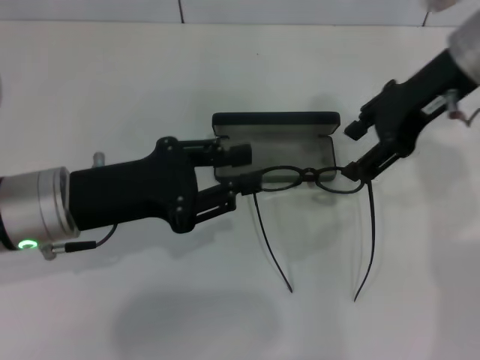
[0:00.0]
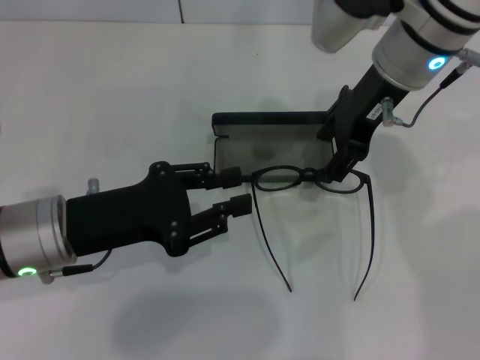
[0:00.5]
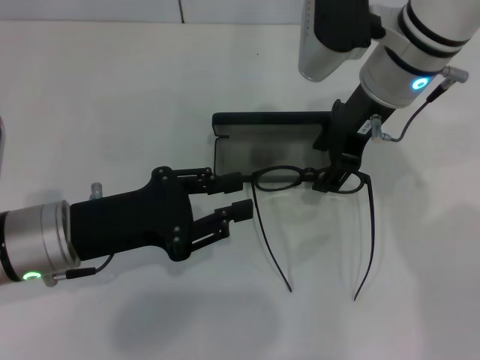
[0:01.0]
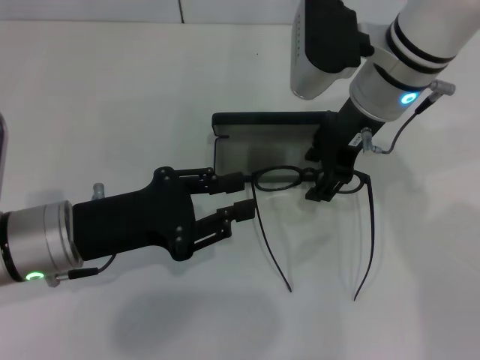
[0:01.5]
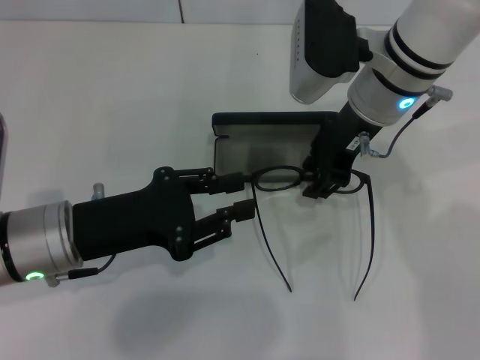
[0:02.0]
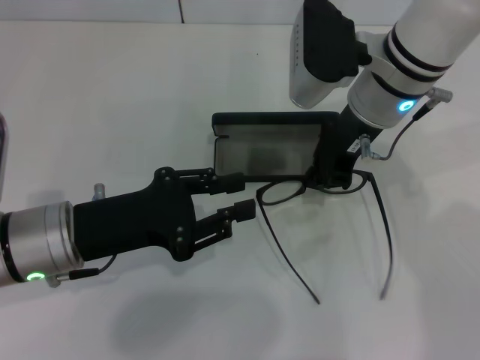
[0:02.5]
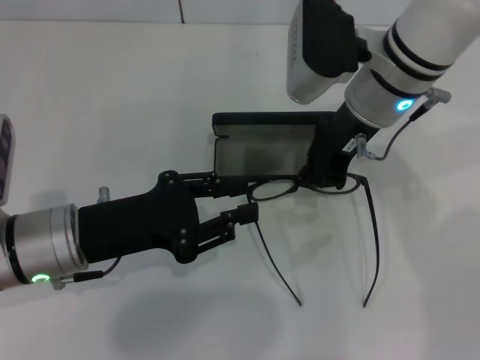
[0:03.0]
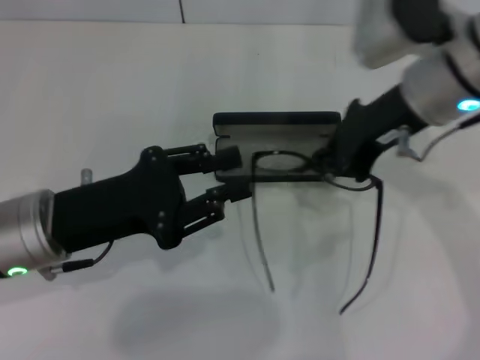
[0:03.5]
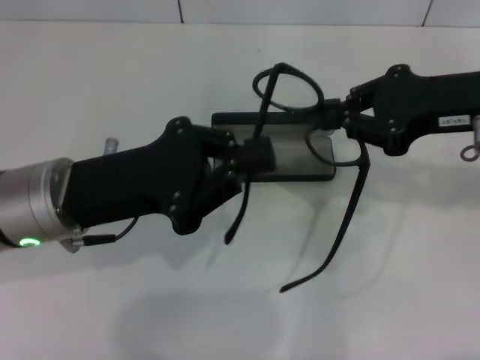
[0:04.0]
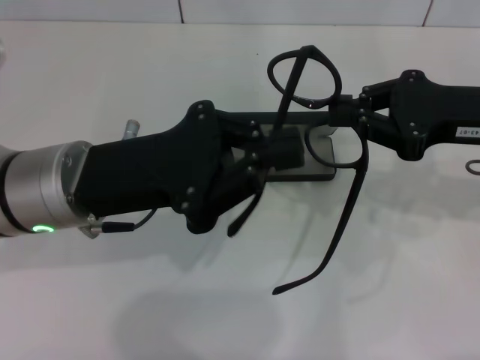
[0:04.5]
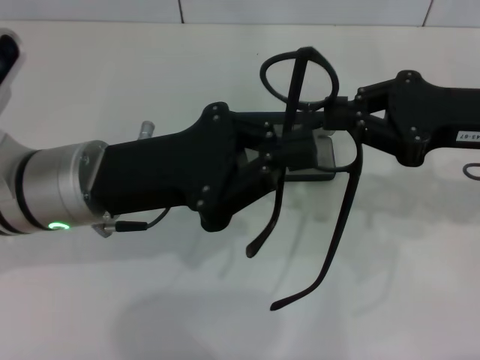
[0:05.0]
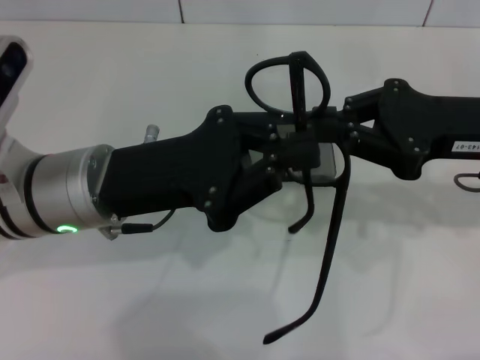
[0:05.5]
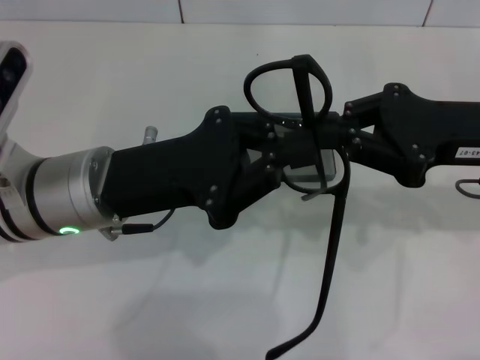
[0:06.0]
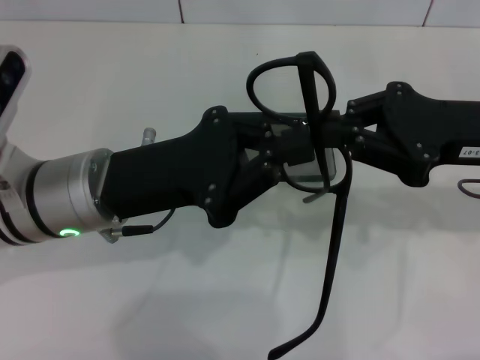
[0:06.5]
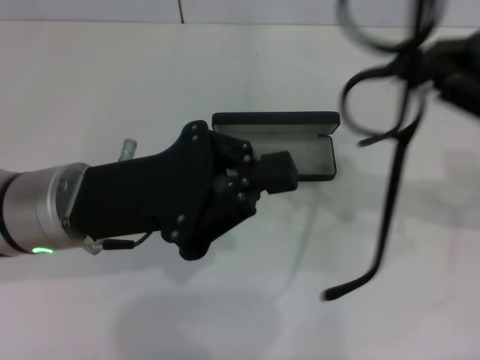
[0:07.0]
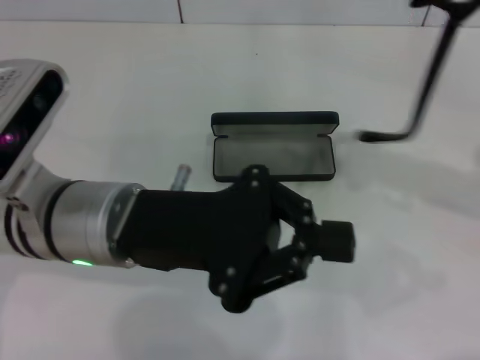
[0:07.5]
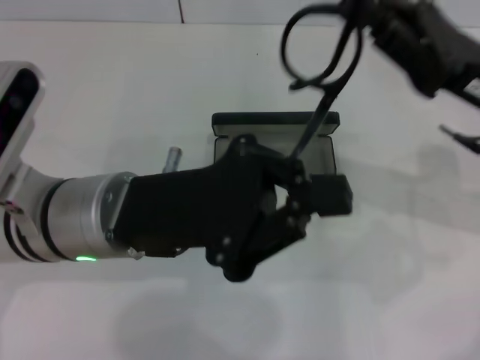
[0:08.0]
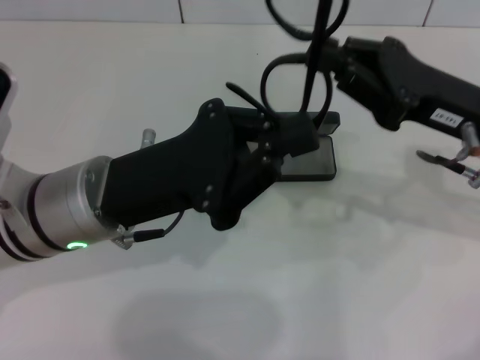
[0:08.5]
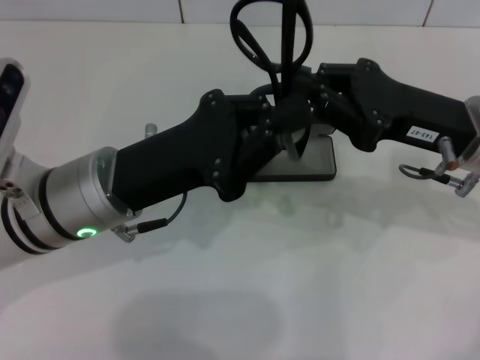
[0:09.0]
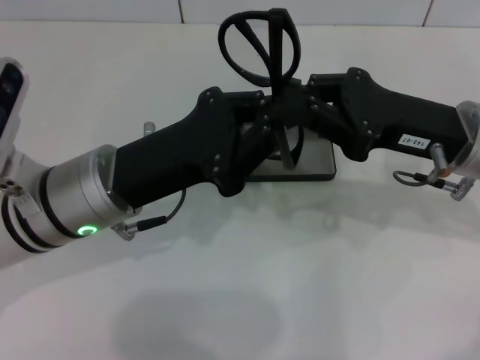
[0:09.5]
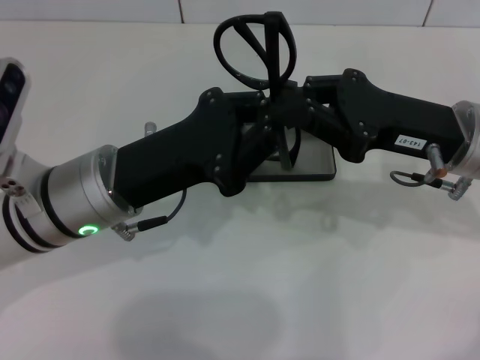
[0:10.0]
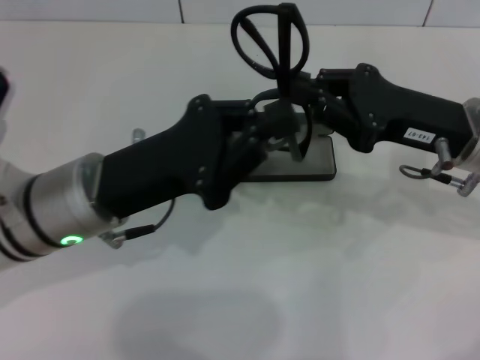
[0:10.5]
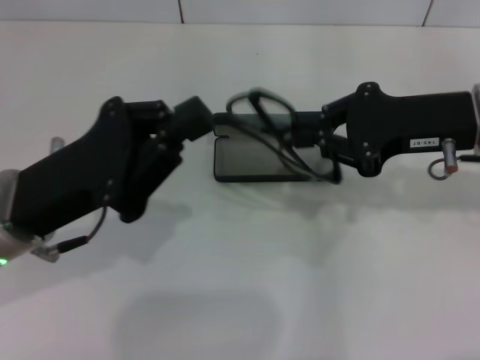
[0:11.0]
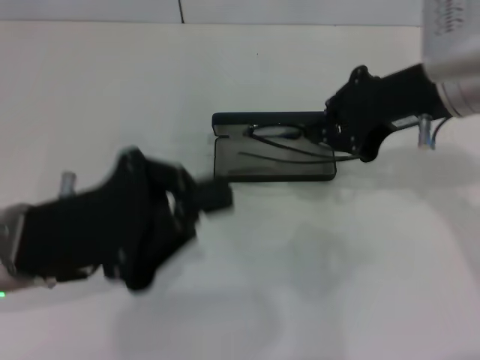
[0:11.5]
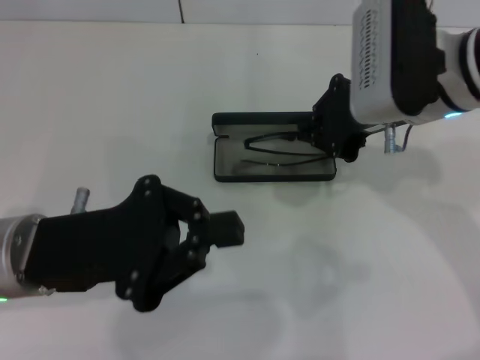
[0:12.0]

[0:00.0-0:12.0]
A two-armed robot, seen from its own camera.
Step, 0:00.0 to 0:02.5: Grab the eyeglass frame with your right hand.
Step, 0:03.0 to 0:10.0: Fold the frame with your left hand.
0:00.0 to 0:02.0: The right gripper heads to the left and downward, covering some 10 cm.
0:02.0 to 0:04.0: The right gripper is displaced to the right and backward by some 15 cm, and closes.
0:10.0 to 0:12.0: The right gripper shifts roughly 10 cm upward and to the left; the left gripper shifts some 5 cm to the left.

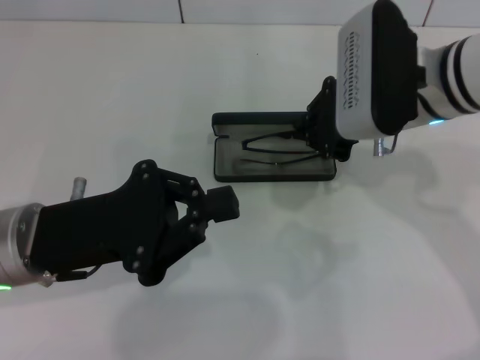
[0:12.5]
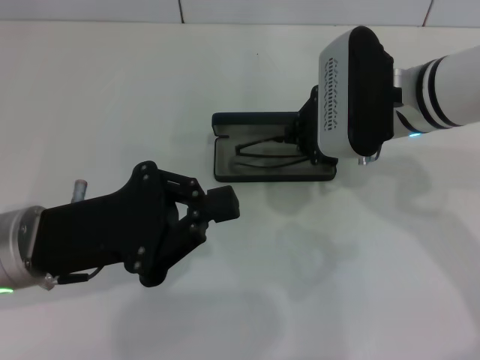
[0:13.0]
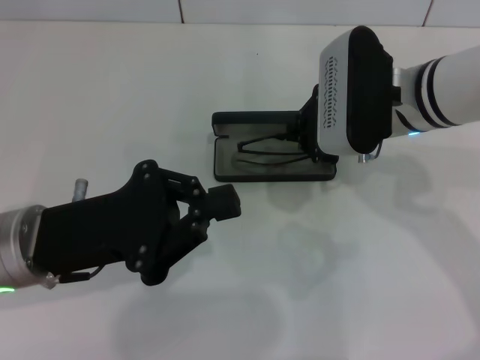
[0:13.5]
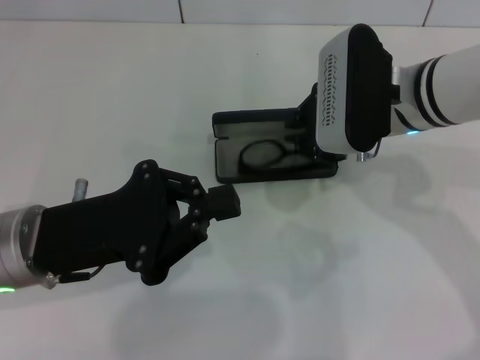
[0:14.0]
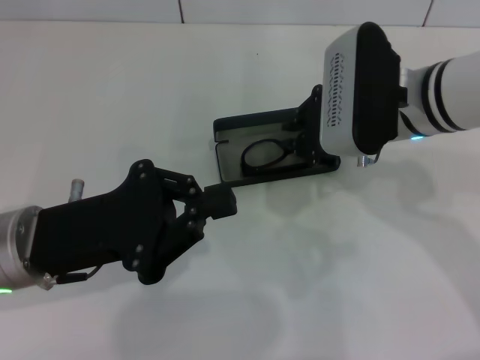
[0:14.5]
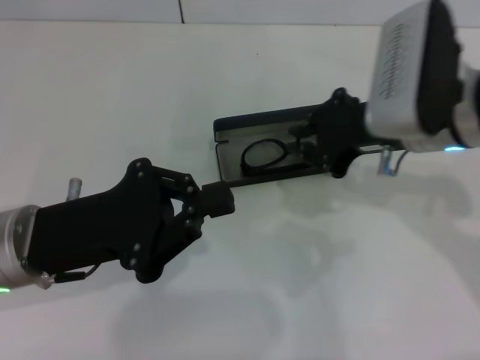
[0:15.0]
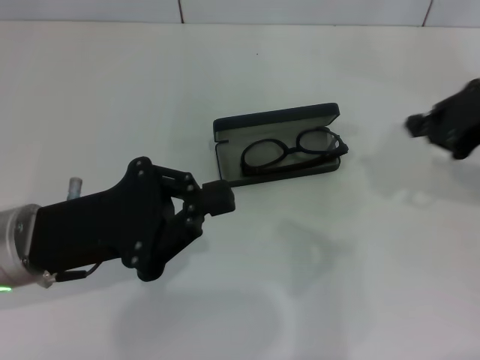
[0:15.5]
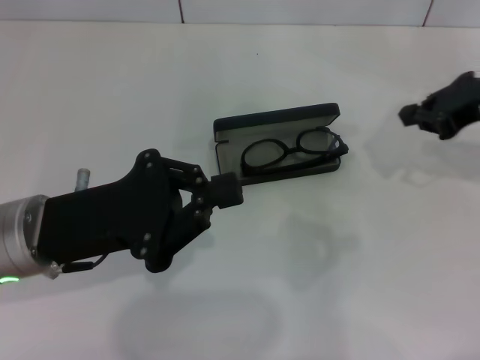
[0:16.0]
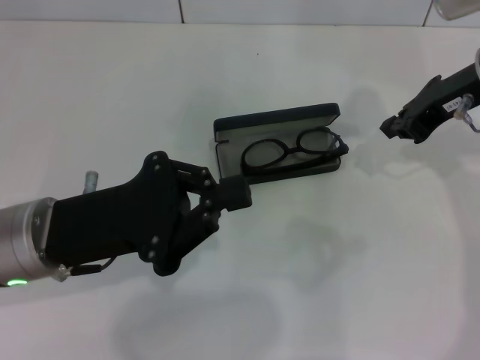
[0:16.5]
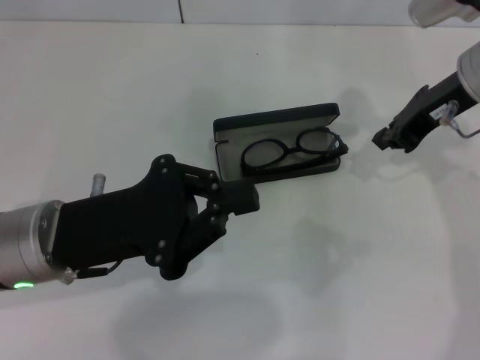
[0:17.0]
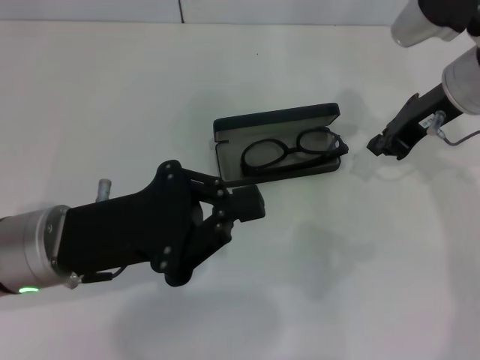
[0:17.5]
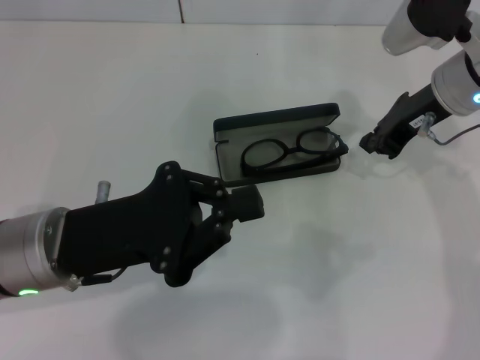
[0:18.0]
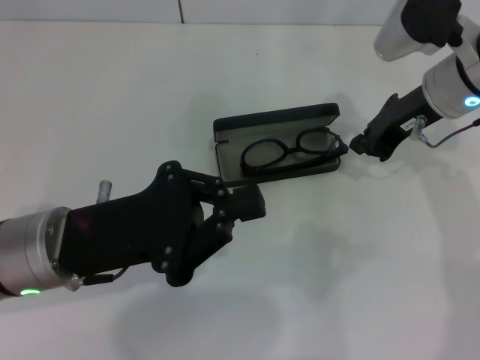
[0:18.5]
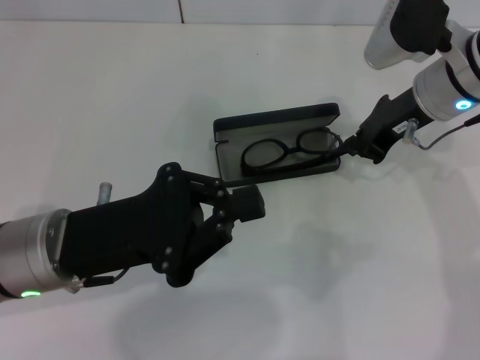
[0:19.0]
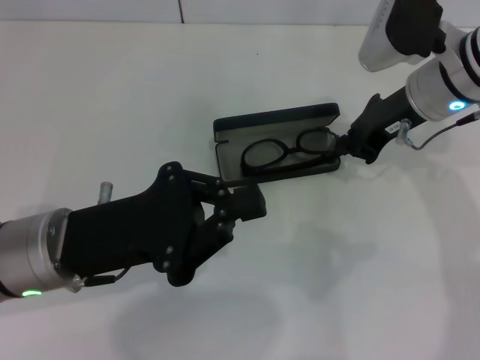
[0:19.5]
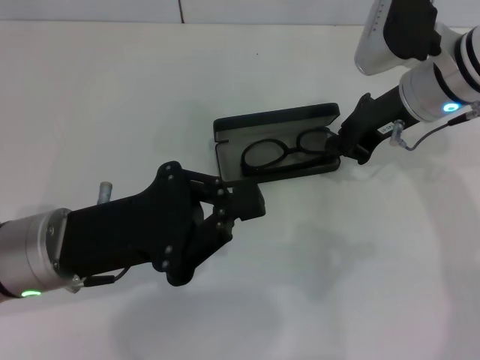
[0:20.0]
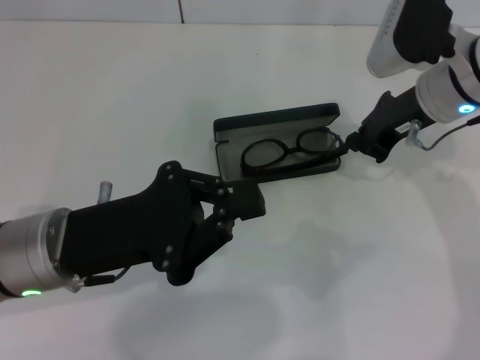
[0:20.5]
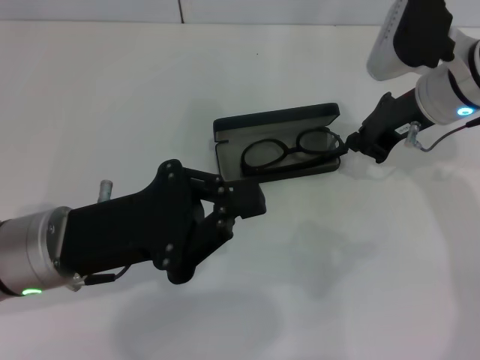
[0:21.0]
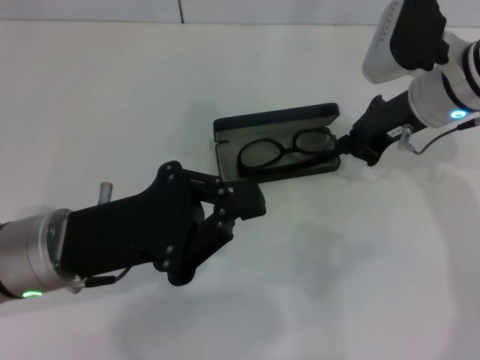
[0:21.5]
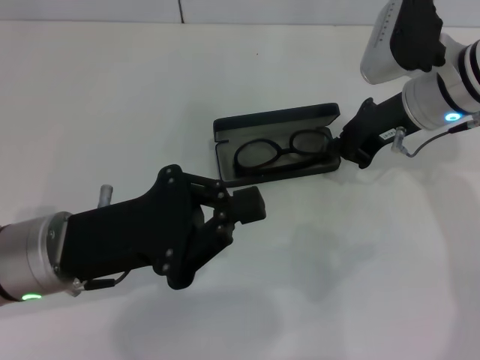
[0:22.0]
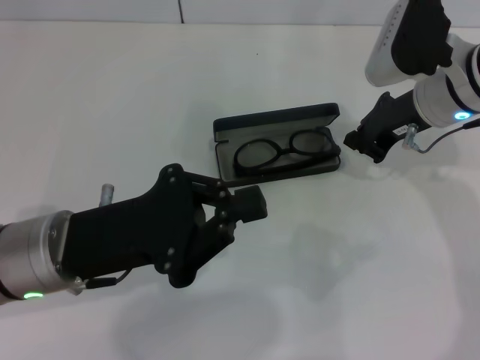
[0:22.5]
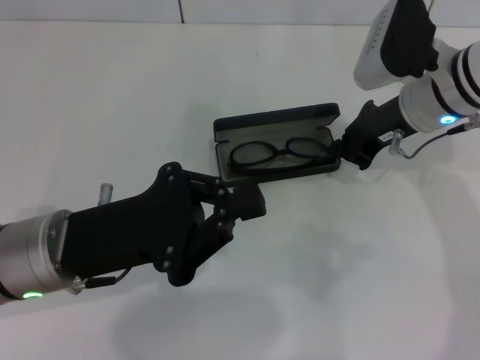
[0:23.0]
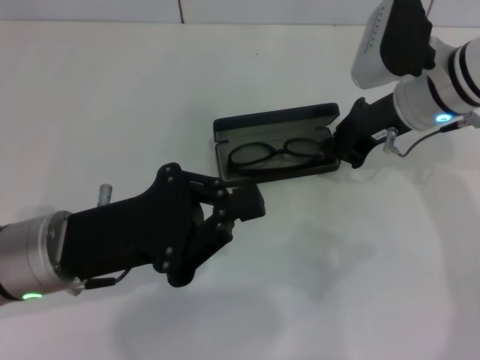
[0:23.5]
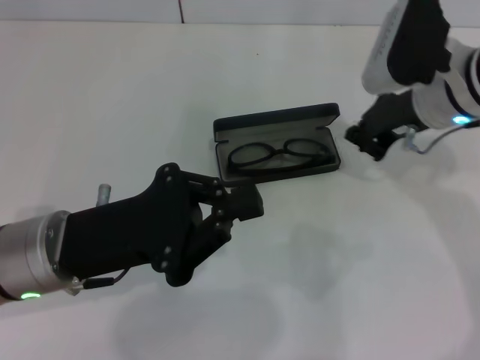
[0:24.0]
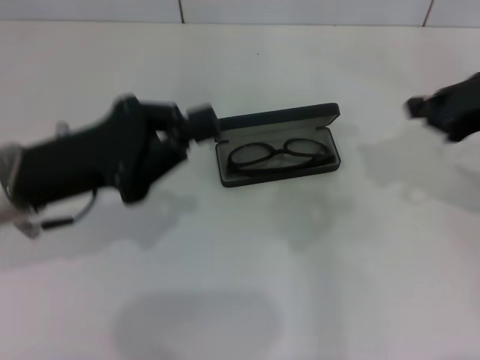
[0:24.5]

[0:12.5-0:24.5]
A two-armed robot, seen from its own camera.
Step, 0:12.5 to 0:14.5: Put the glasses into the case with your right hand.
0:12.5 to 0:14.5: The grippers move only a little.
0:14.5 to 0:16.5: The right gripper heads to the right, covering some 10 cm.
0:16.5 to 0:18.5: The right gripper moves approximately 5 cm.
0:18.5 to 0:22.5: The grippers move only a little.
0:22.5 to 0:24.5: The left gripper moves roughly 5 cm; the right gripper shifts approximately 15 cm to the right, backward and upward.

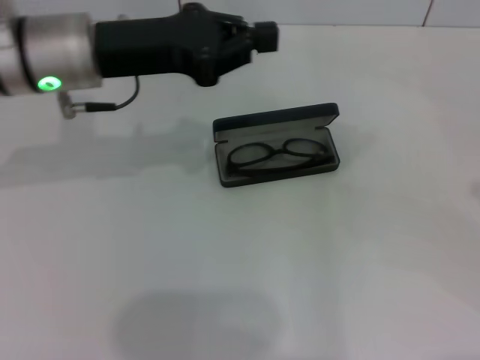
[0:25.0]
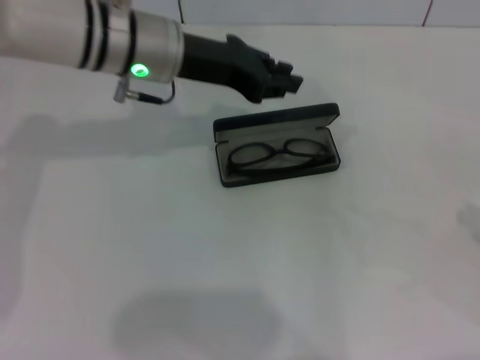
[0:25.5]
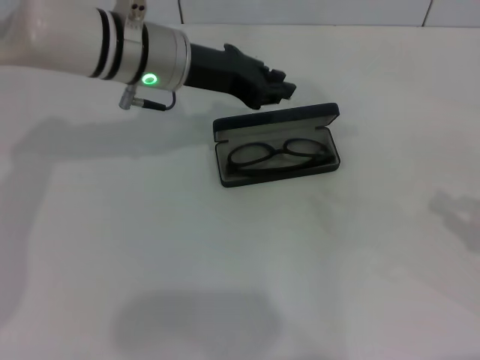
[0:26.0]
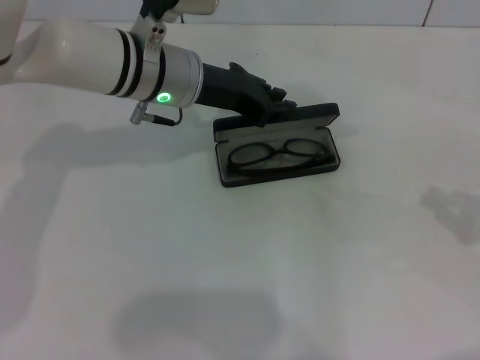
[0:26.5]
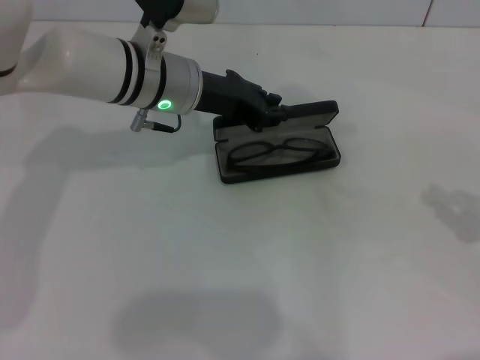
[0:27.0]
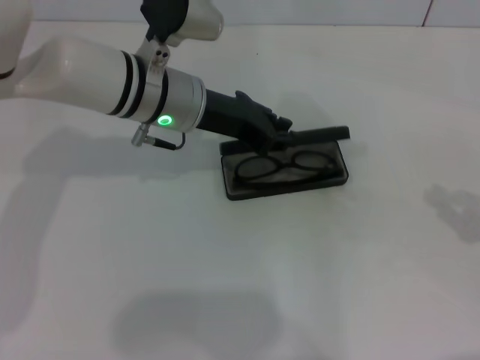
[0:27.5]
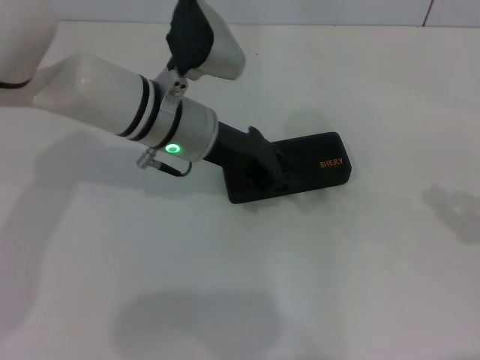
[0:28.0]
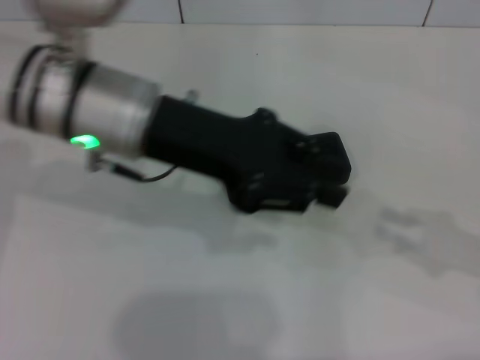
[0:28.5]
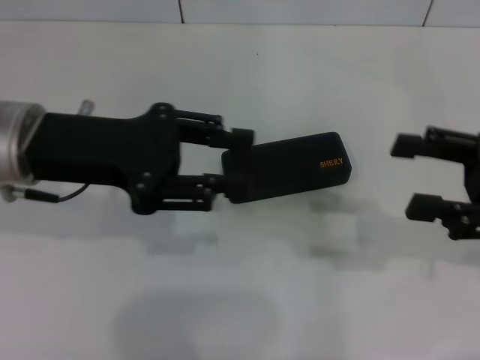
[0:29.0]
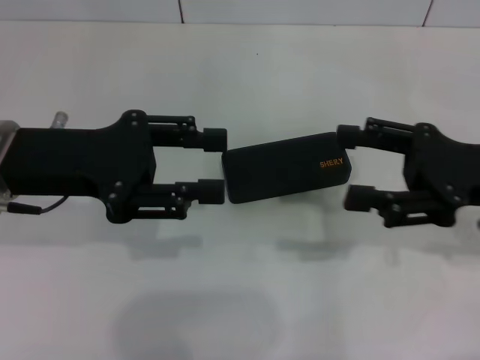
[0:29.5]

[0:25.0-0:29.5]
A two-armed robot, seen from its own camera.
Step, 0:25.0 to 0:27.5: Close the glasses case with your left hand.
0:25.0 to 0:27.0: The left gripper shifts approximately 10 cm to the right and downward; the right gripper shifts about 5 cm downward.
0:27.0 to 0:29.5: The left gripper goes about 15 cm to the left and backward, and opens, while the right gripper is displaced to the left and forward by about 15 cm, and opens up.
